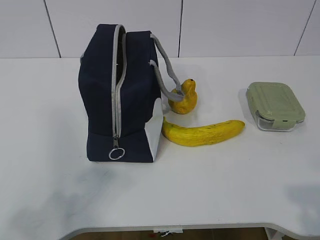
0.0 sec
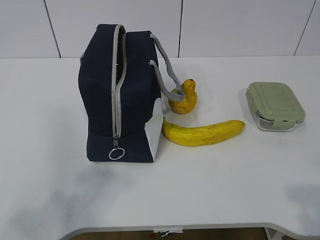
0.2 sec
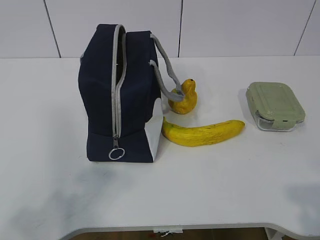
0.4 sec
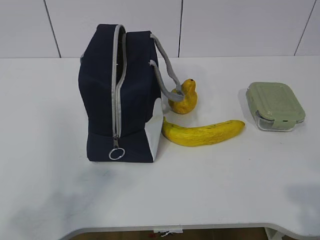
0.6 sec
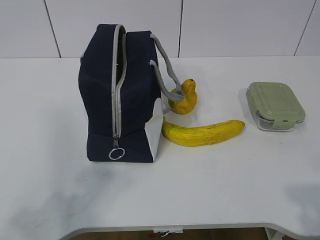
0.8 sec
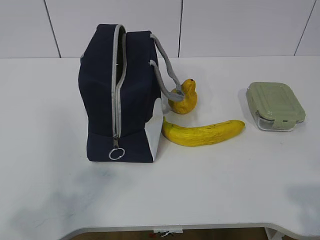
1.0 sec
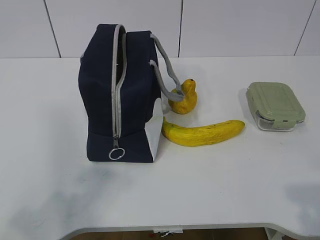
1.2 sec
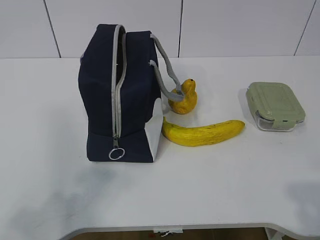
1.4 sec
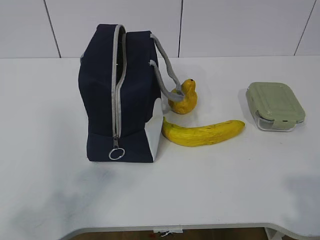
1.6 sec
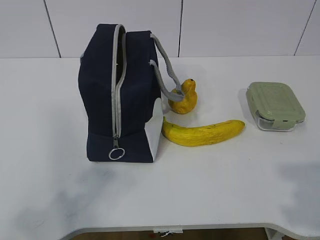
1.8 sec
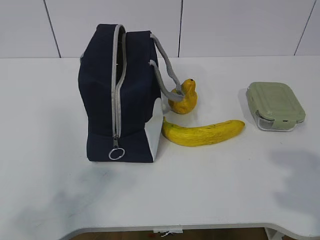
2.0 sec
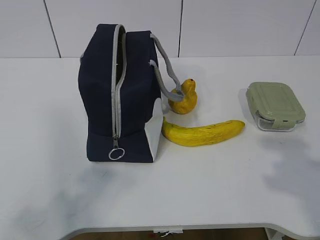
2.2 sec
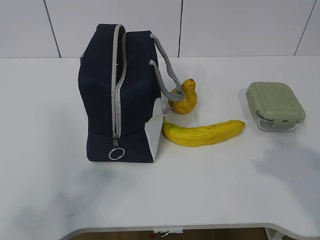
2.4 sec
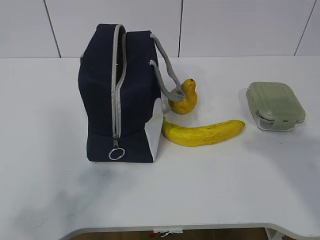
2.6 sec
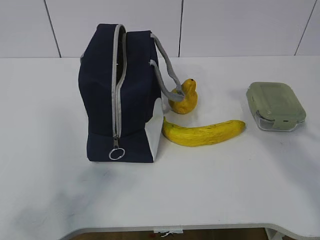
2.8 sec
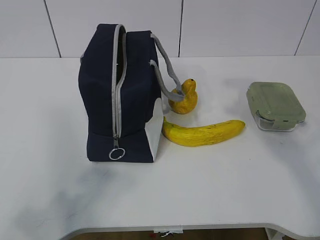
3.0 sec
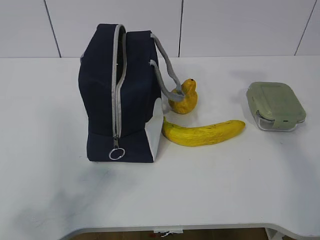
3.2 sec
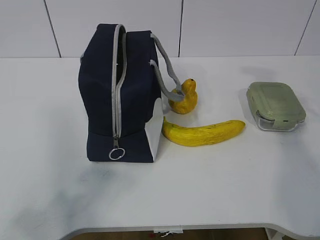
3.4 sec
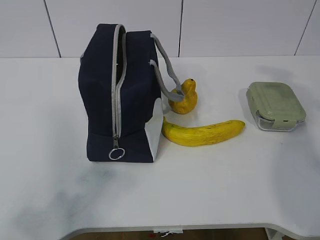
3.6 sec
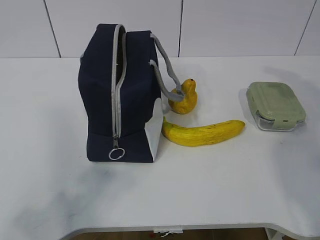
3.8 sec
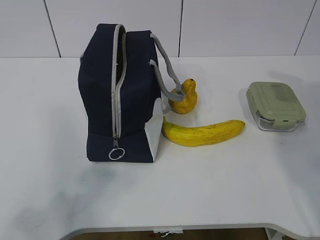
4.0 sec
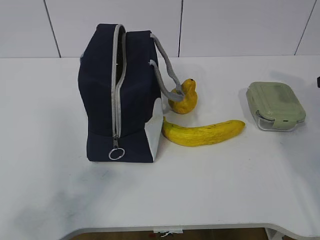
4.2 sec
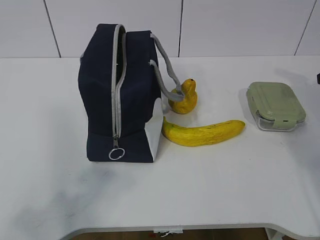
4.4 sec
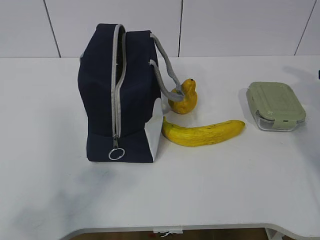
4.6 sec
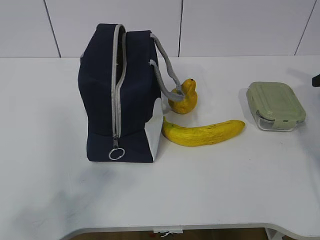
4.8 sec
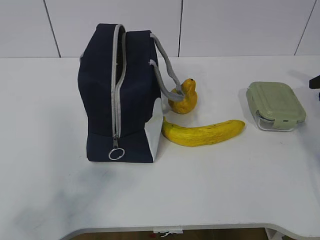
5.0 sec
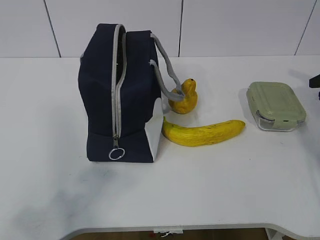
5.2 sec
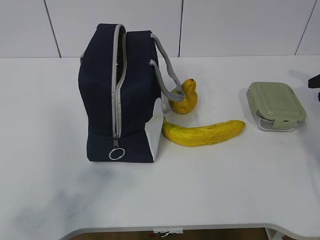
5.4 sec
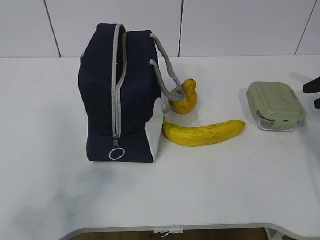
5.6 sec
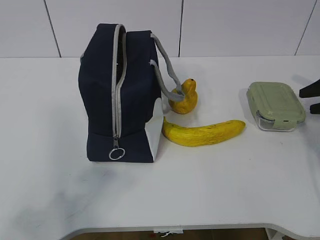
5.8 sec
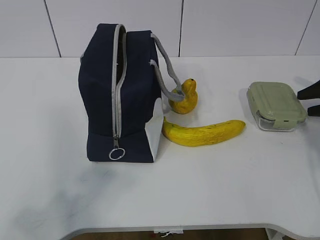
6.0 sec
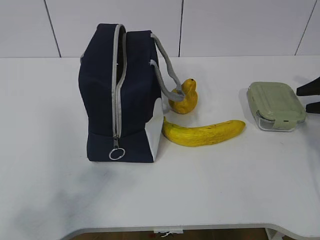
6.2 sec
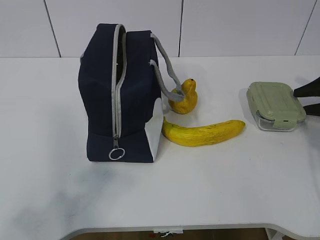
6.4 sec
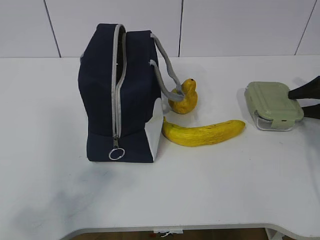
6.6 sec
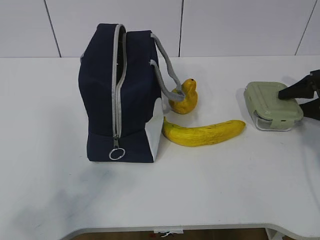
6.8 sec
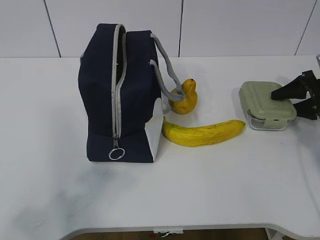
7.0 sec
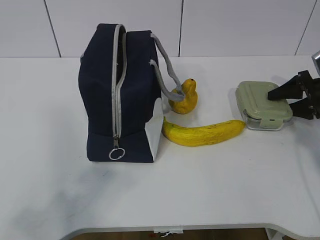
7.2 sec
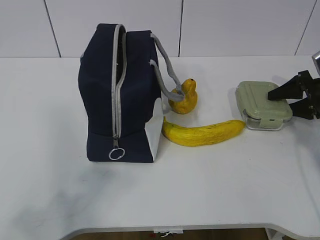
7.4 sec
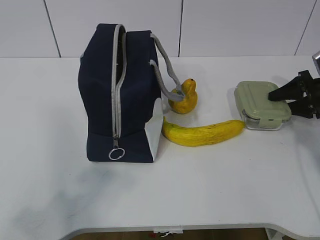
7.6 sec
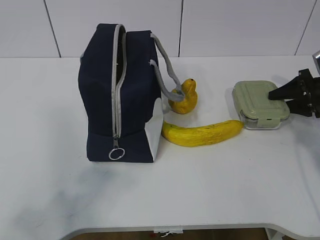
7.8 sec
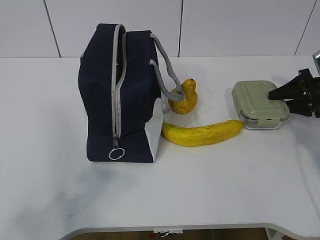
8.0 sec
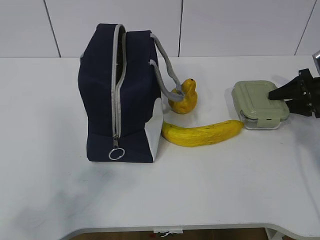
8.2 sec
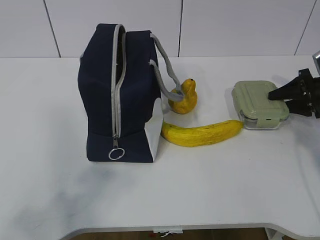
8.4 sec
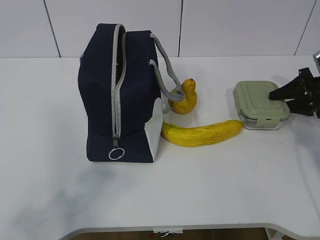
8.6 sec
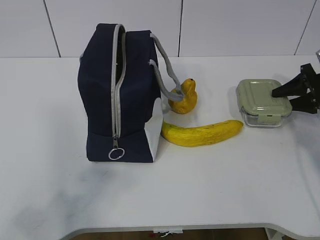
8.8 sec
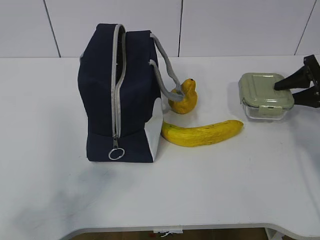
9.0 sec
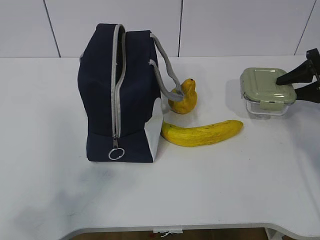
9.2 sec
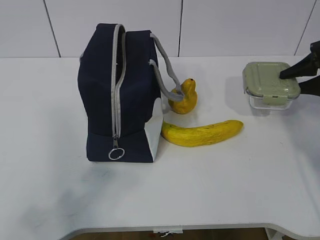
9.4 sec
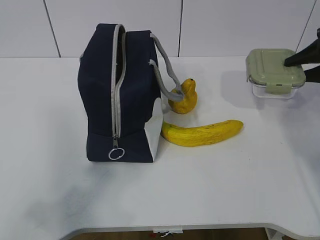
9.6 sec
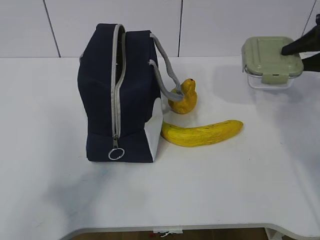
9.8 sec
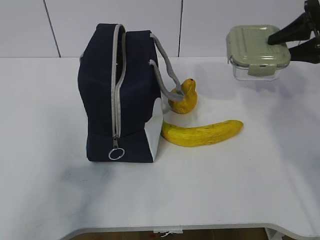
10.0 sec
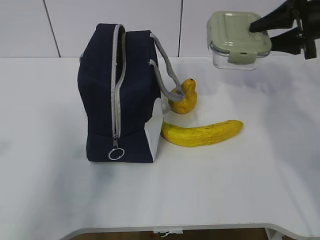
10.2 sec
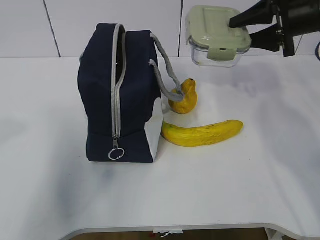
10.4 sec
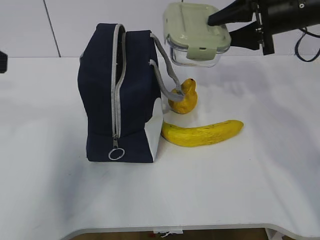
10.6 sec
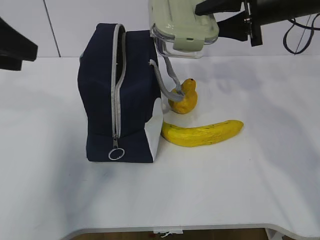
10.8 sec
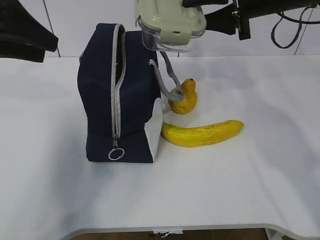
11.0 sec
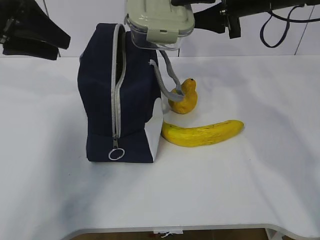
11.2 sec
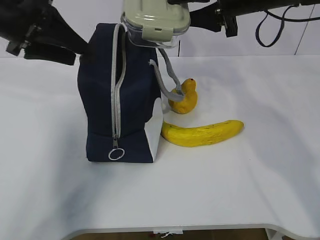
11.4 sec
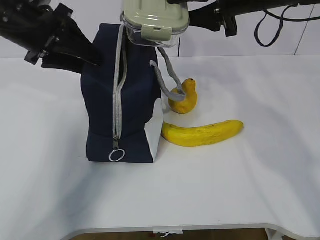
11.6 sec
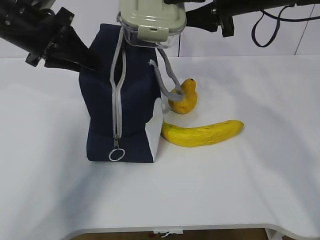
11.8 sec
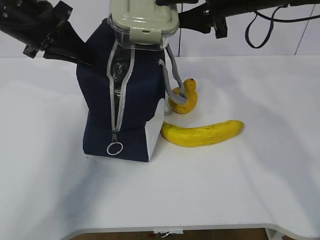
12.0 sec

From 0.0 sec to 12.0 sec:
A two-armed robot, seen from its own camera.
Step, from 0.0 sec to 7.2 sec: Grab the lunch box with your right hand.
Step, from 7.4 sec to 10.2 sec: Grab the lunch bag with your left hand.
From 1.6 sec to 3.0 sec: The right gripper heads forward, covering about 25 cm.
From 4.4 sec to 6.0 sec: The right gripper heads downward and forward, covering roughly 10 cm.
From 6.0 sec to 7.6 sec: The right gripper ends up some 5 cm from where it was.
From 7.6 sec to 9.0 sec: The grippers make only small movements.
From 9.0 sec to 10.4 sec: The left gripper travels forward and upward by about 15 cm. The right gripper is displaced upward and to the left by approximately 20 cm.
From 10.4 sec to 12.0 sec: The right gripper shifts roughly 10 cm to the left. The left gripper shifts about 25 cm forward, and closes its fingers.

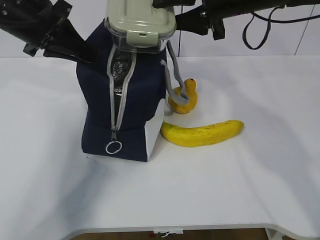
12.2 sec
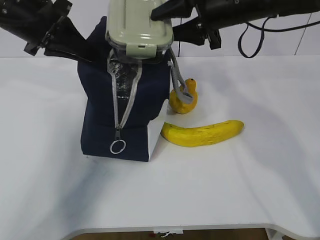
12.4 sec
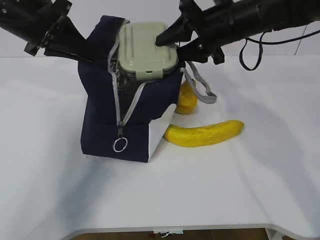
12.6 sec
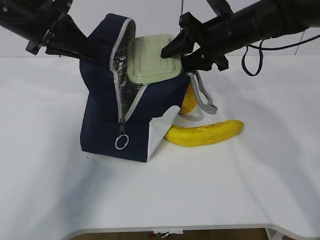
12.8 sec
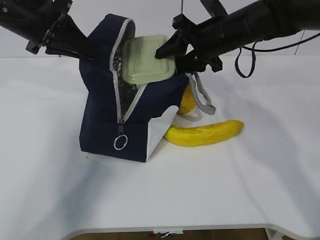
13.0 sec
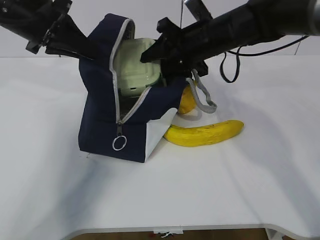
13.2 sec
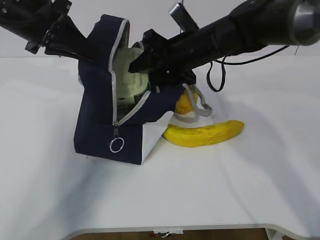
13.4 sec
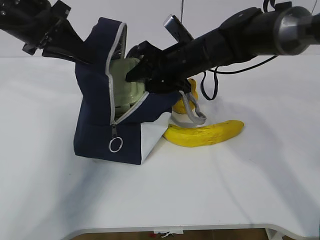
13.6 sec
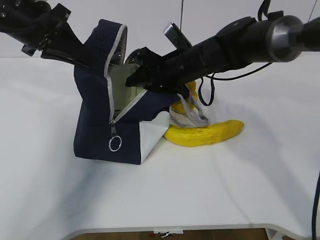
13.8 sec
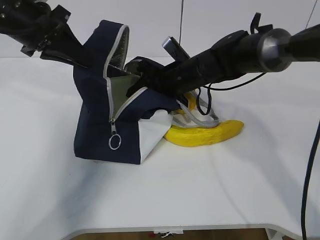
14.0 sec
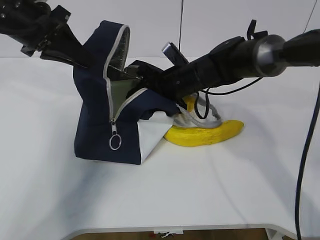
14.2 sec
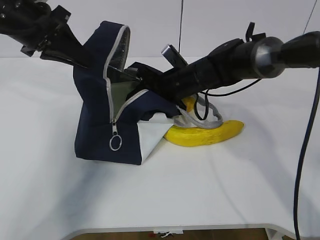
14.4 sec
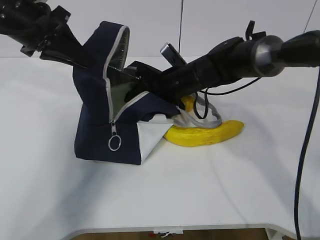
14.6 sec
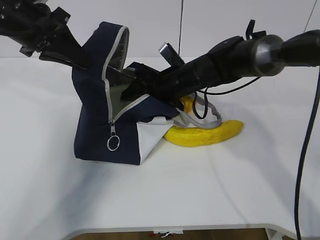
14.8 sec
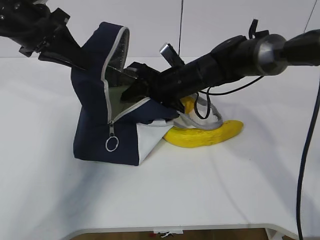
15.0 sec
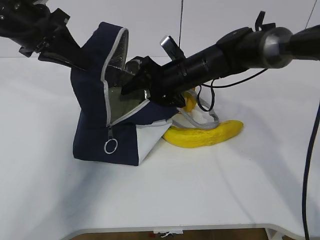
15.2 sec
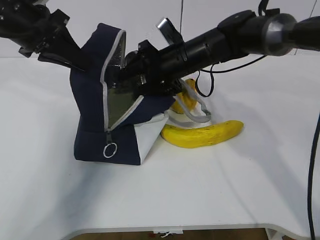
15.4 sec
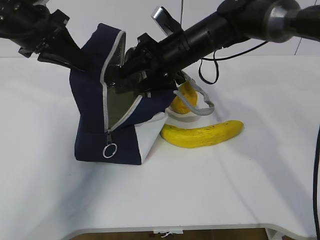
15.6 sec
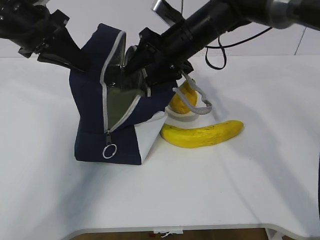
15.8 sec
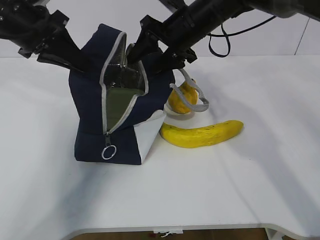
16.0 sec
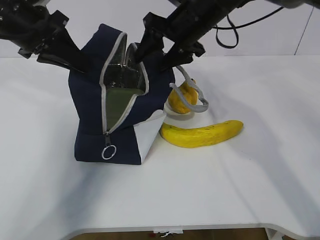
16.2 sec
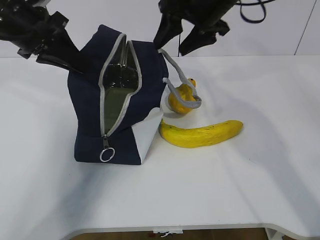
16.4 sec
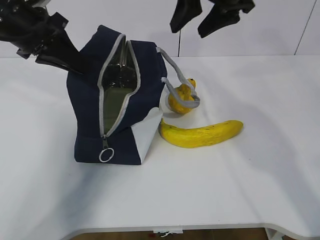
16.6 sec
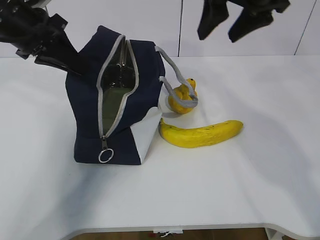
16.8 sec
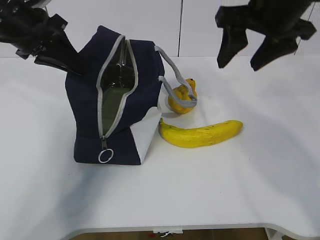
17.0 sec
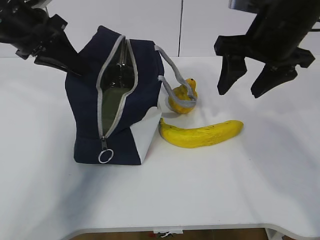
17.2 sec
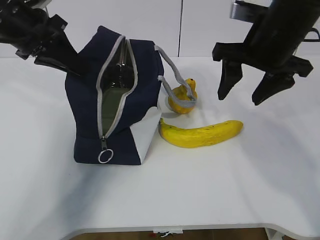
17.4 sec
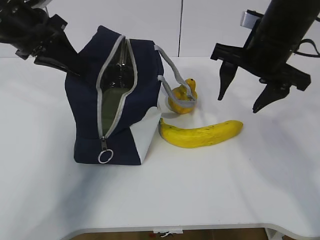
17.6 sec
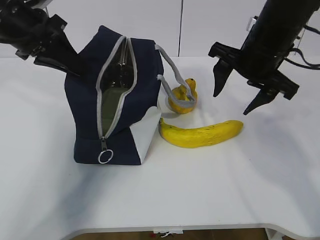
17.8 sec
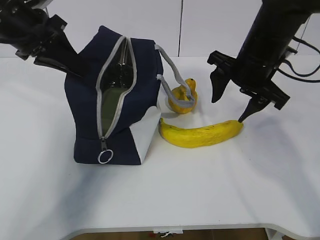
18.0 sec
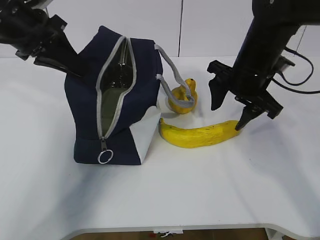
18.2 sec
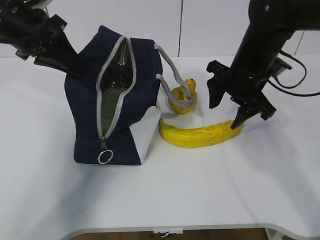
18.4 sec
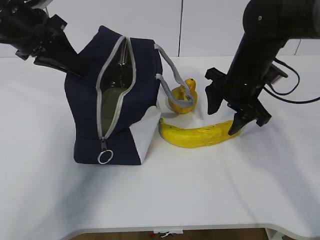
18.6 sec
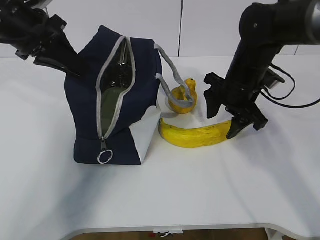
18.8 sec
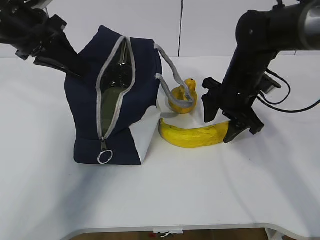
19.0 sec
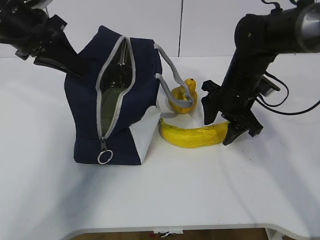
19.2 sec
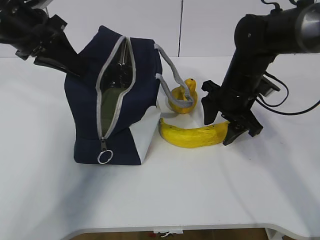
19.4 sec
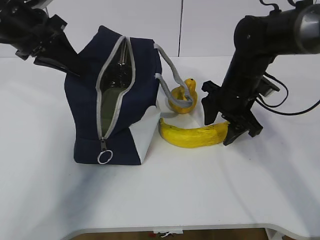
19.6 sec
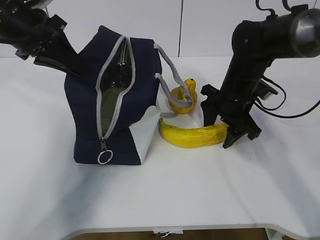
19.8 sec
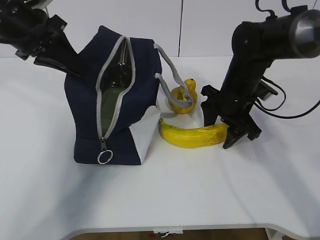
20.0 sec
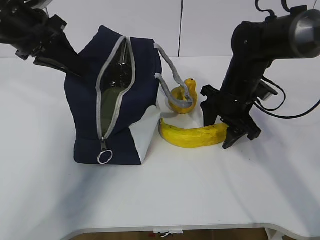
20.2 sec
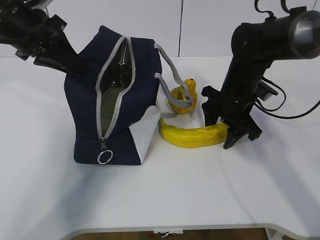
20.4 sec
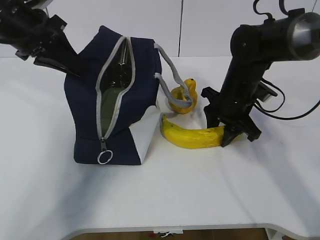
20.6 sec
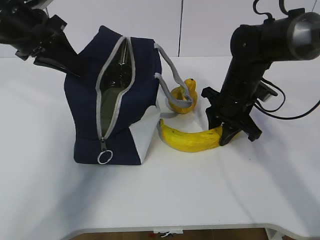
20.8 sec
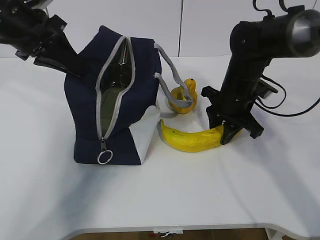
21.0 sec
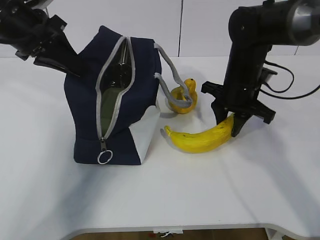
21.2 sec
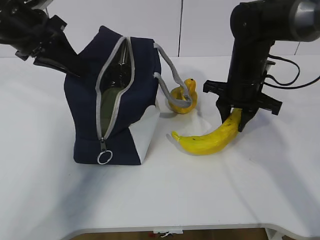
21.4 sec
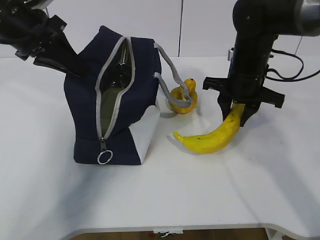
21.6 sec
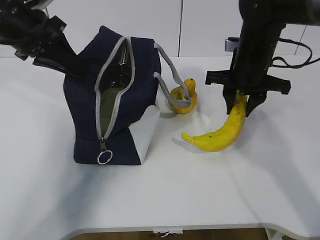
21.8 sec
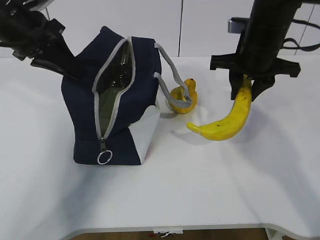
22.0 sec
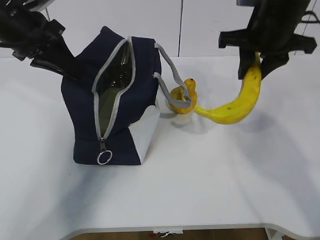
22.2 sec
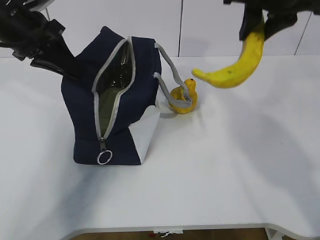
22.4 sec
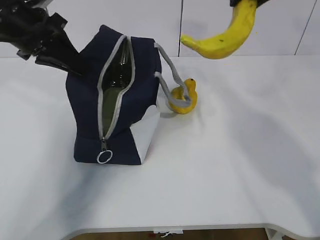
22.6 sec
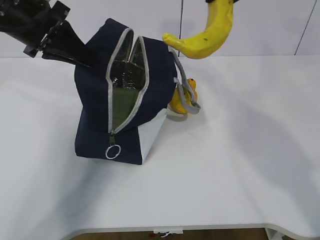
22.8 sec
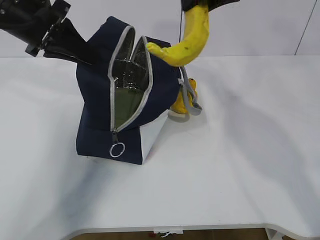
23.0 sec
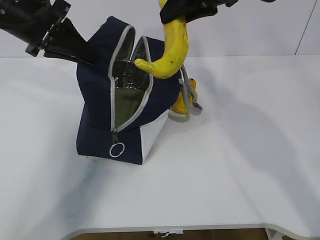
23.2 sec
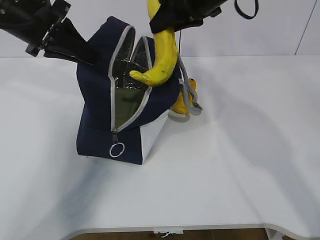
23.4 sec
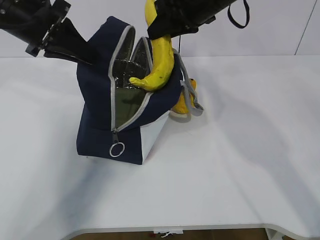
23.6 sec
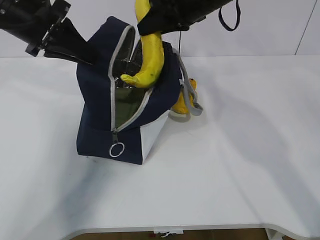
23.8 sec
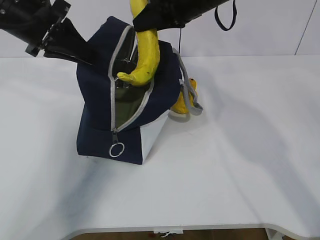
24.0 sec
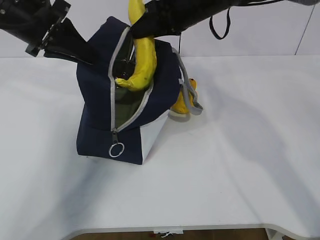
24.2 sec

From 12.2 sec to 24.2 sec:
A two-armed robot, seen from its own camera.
Step, from 12.8 sec to 17.4 sec: Grab the banana with your right hand.
Step, from 17.6 sec to 21.0 sec: Place it into the bag with your right hand.
Step, from 21.4 sec to 23.8 sec: Grab the pear with your right hand.
From 12.2 sec to 13.8 sec: The right gripper moves downward and to the left, approximately 15 cm.
From 13.8 sec to 15.2 sec: The grippers stay close to where they were, moving slightly.
From 15.2 sec to 16.6 sec: The right gripper heads upward, covering some 20 cm.
From 16.6 sec to 18.2 sec: The right gripper travels downward by some 15 cm.
From 18.2 sec to 19.8 sec: The right gripper heads downward, covering about 5 cm.
From 19.8 sec to 21.2 sec: The right gripper closes.
From 21.2 sec to 22.6 sec: The right gripper moves upward, roughly 20 cm.
From 22.6 sec to 24.2 sec: The right gripper is displaced downward, to the left and forward by some 15 cm.
